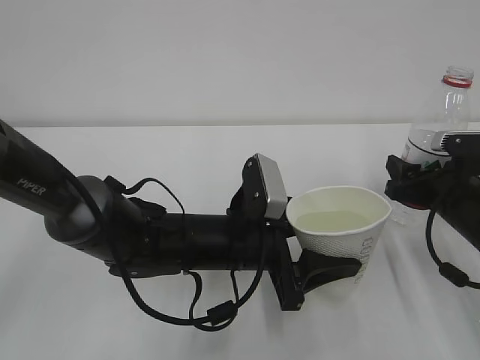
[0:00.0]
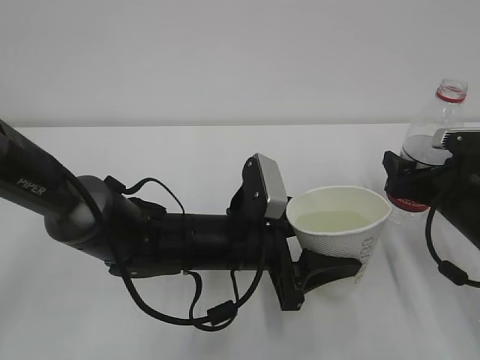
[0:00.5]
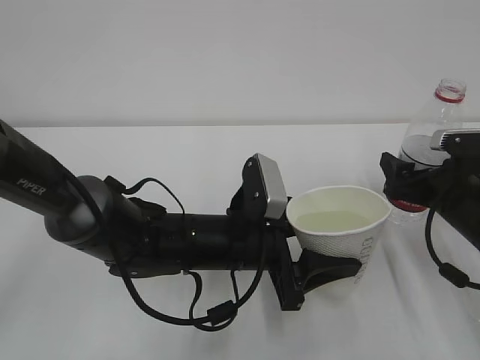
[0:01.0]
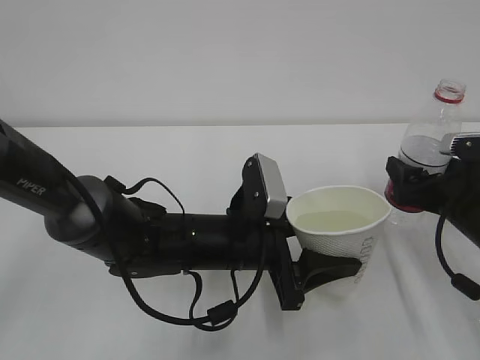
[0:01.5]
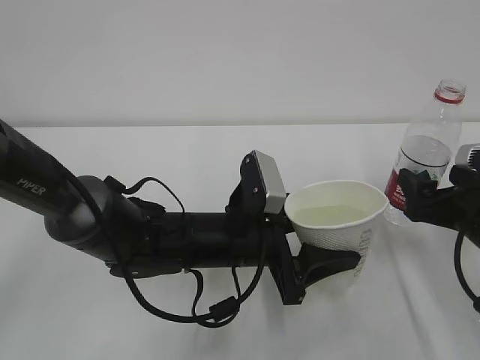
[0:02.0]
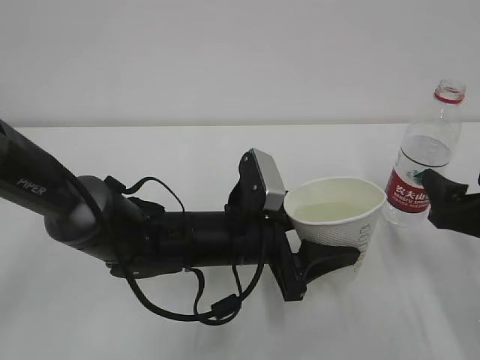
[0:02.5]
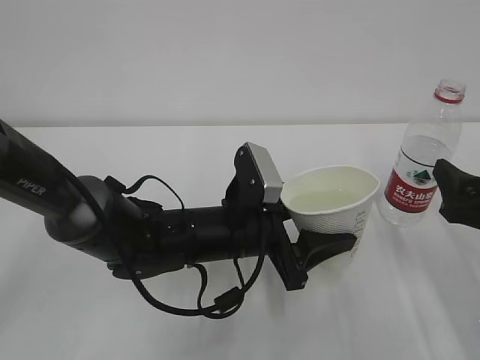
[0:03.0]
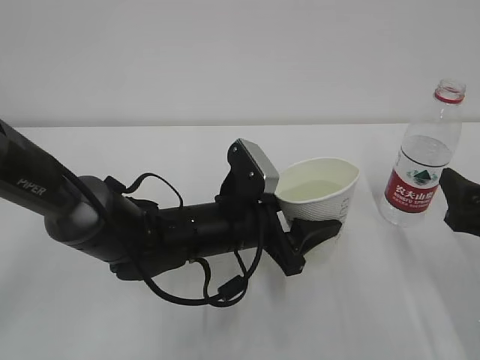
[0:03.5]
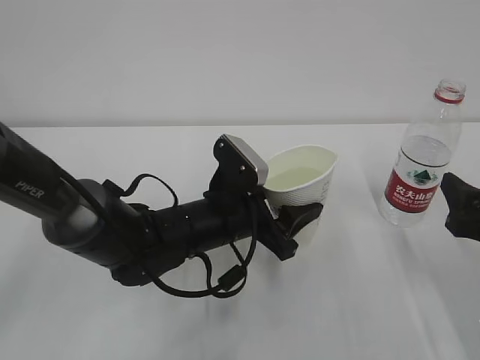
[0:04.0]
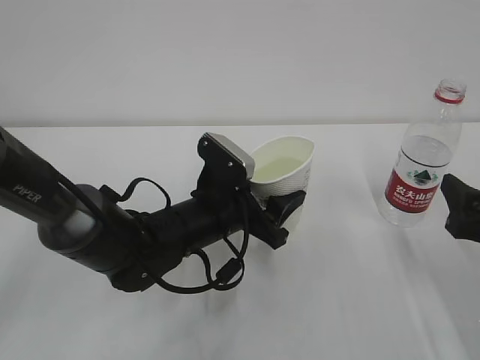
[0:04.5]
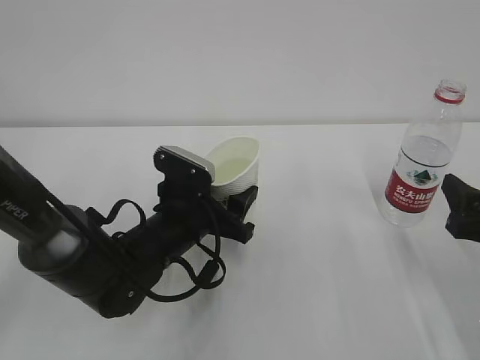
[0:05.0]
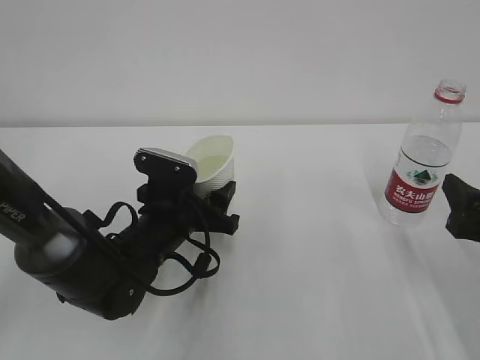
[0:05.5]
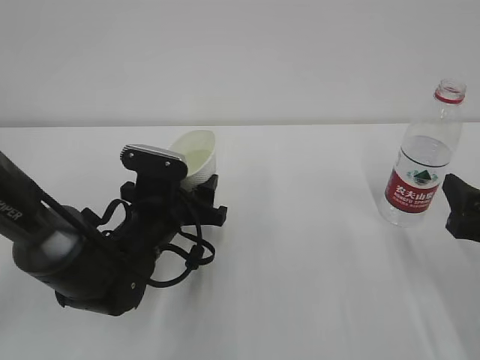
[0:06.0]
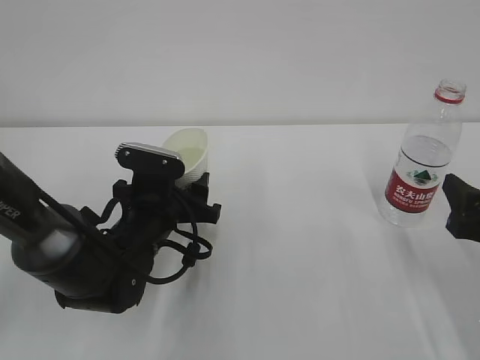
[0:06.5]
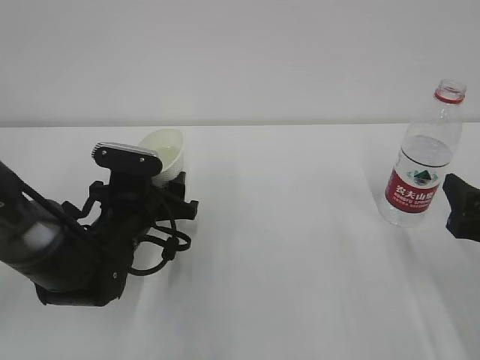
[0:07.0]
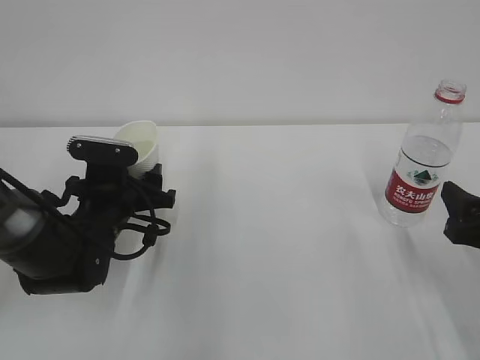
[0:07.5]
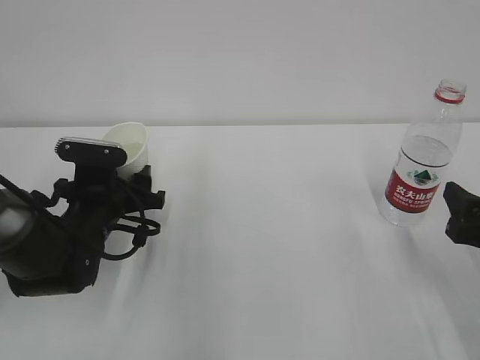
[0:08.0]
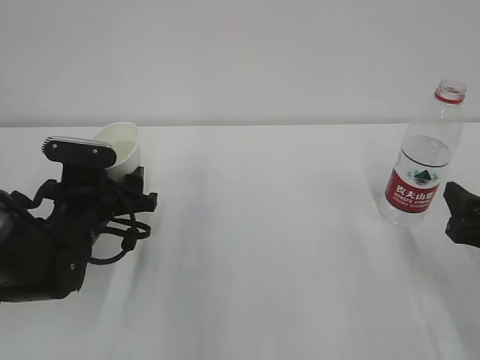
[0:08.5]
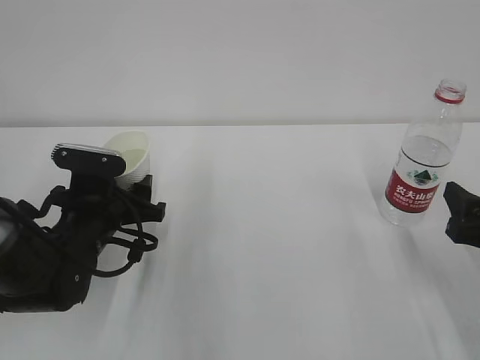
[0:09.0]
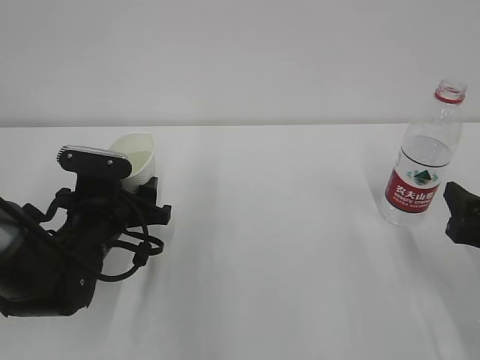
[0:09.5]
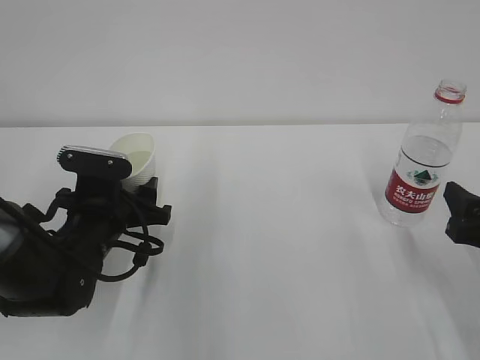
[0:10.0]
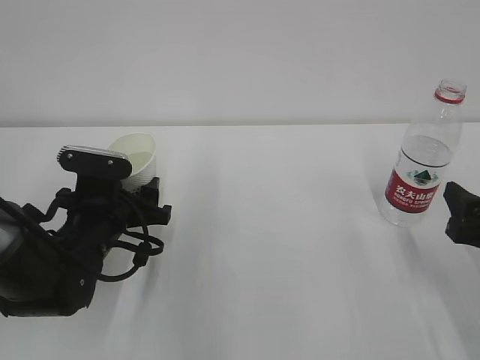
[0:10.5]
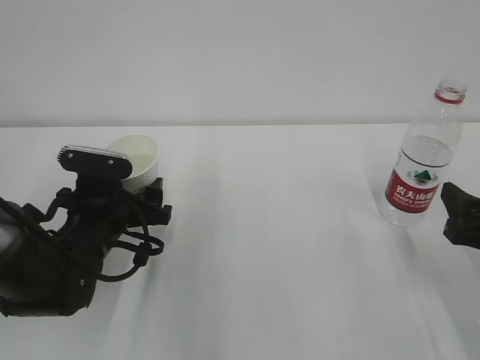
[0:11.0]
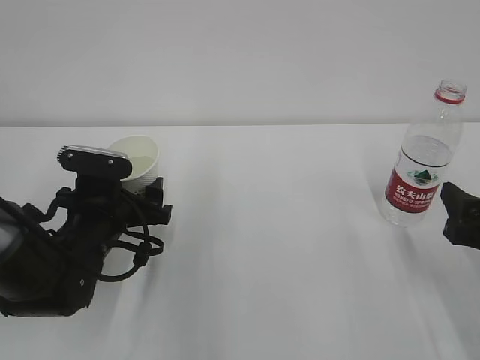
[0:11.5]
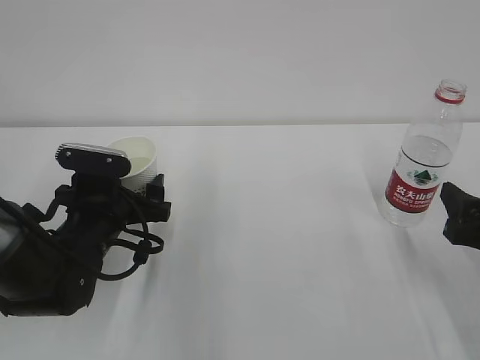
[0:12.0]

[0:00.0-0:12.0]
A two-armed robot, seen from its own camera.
0:00.0 to 0:02.0: The right gripper shifts by about 5 cm, and opens up.
0:02.0 to 0:04.0: The right gripper goes some 5 cm backward.
0:04.0 to 0:06.0: The left gripper is displaced to the left by some 10 cm.
0:06.0 to 0:08.0: The left gripper travels to the left by about 5 cm.
0:08.0 to 0:10.0: There are only small adjustments of the grippers.
0:10.0 to 0:12.0: The left gripper opens.

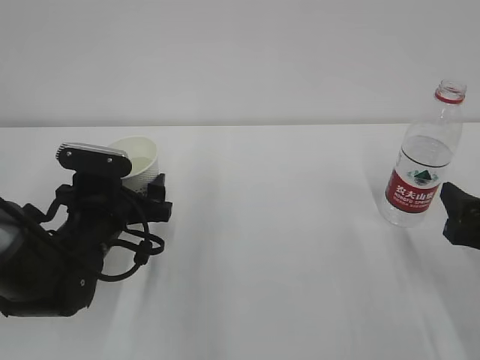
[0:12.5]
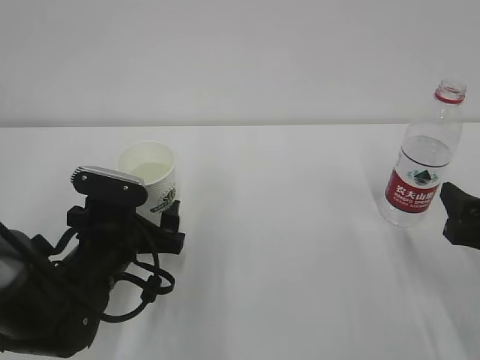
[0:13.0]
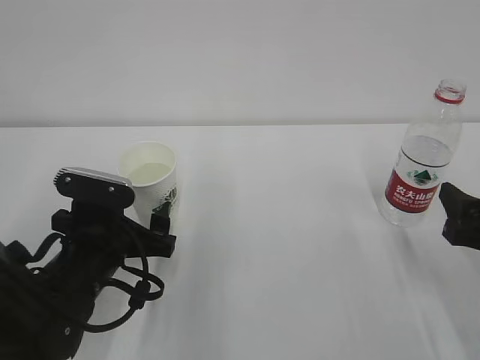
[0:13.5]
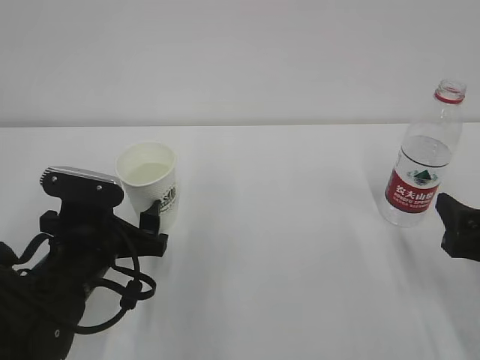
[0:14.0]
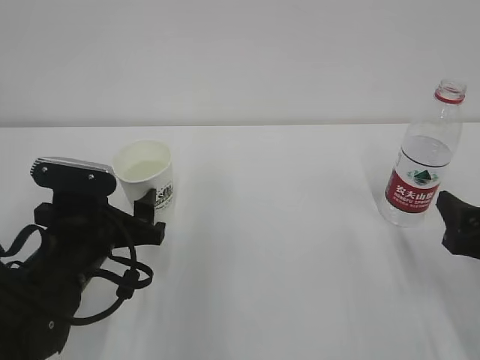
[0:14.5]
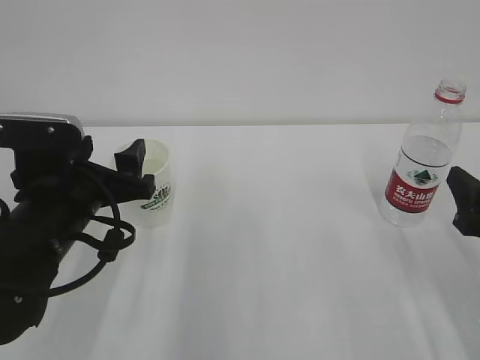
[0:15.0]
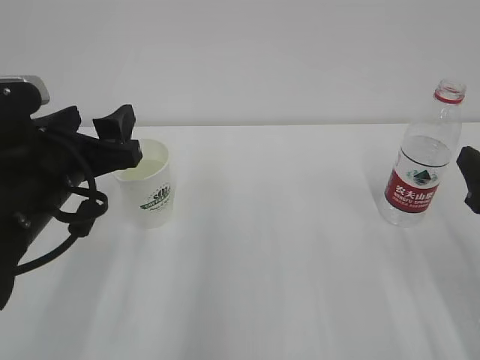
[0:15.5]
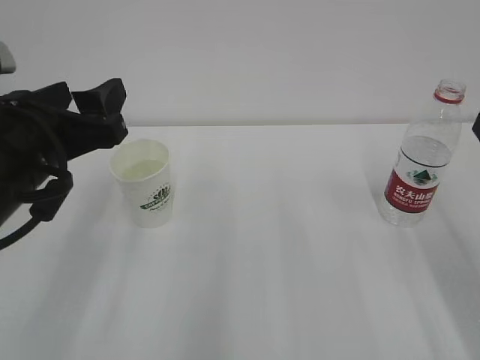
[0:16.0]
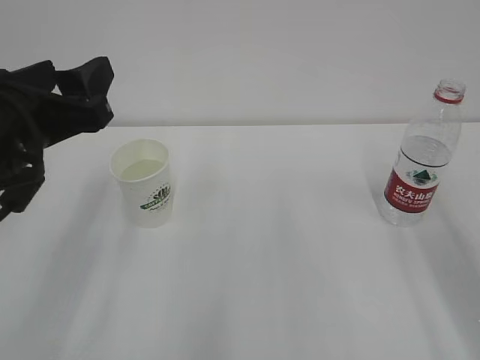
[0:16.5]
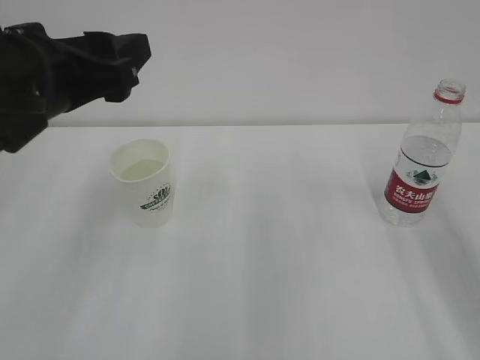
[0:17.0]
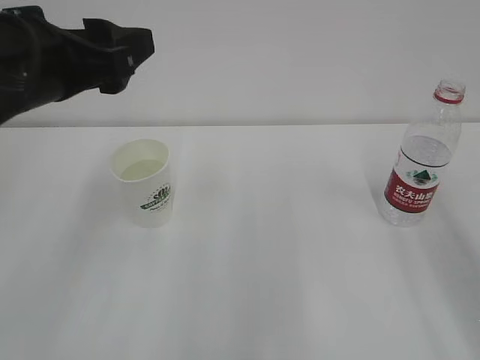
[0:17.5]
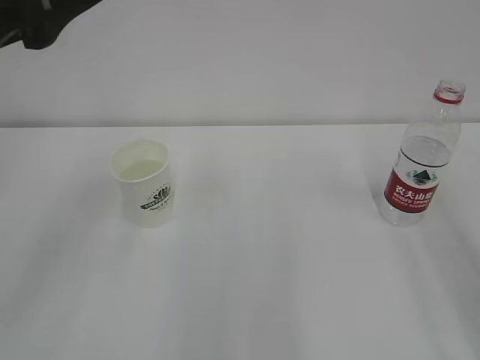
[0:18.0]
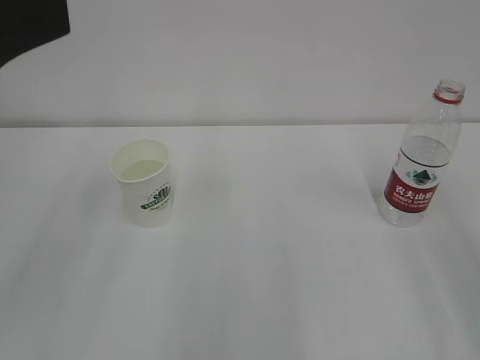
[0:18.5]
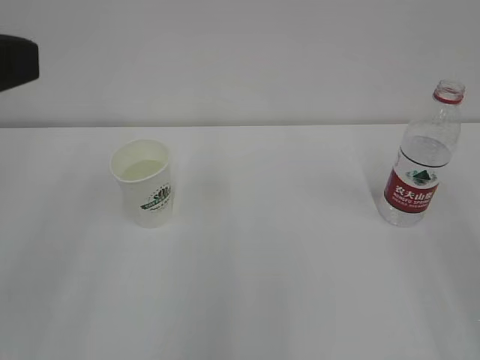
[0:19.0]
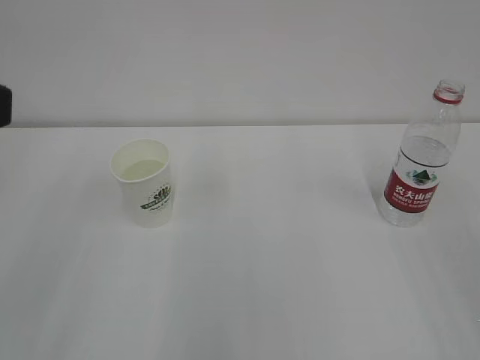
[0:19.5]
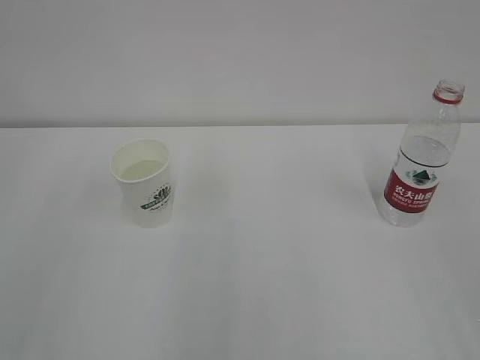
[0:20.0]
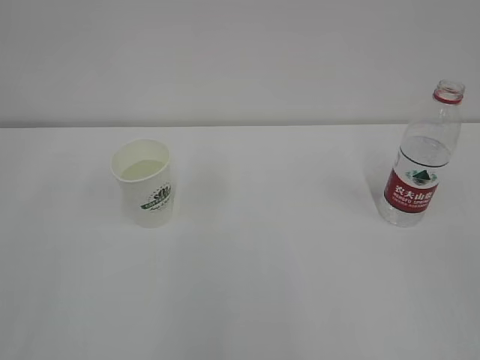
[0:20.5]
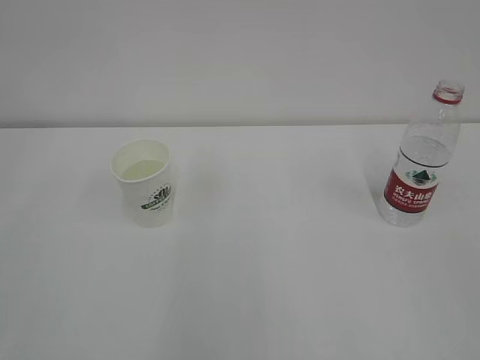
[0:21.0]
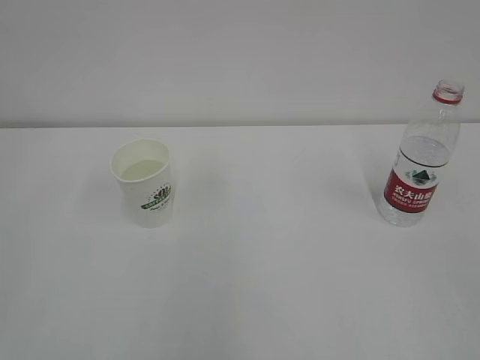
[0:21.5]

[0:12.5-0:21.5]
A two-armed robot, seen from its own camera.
0:12.5 to 0:14.5: The left gripper shifts roughly 5 cm backward.
0:14.5 to 0:17.0: The grippers both shift upward by roughly 20 cm.
0:17.0 to 0:19.5: The left gripper is displaced backward, upward and to the left by roughly 15 cm.

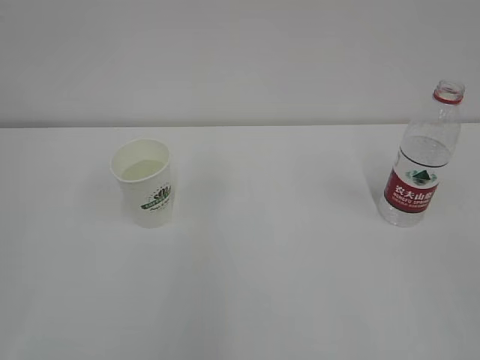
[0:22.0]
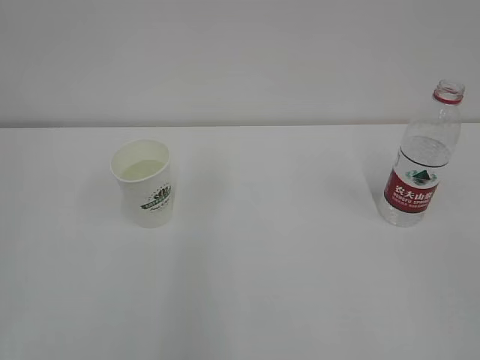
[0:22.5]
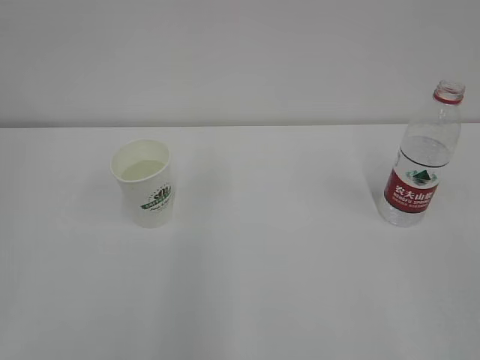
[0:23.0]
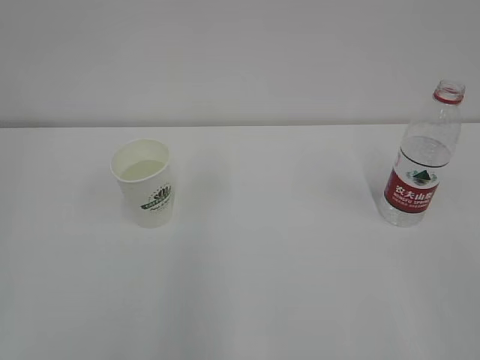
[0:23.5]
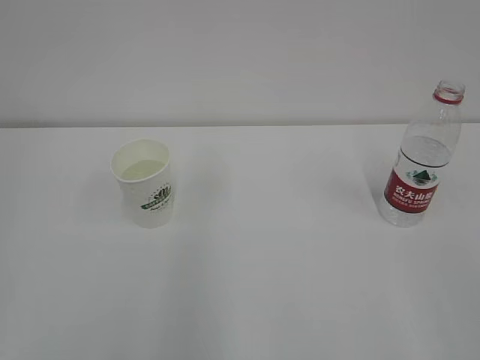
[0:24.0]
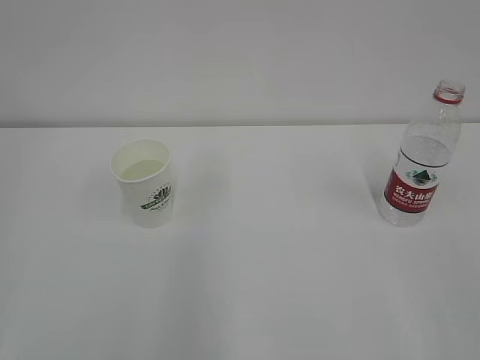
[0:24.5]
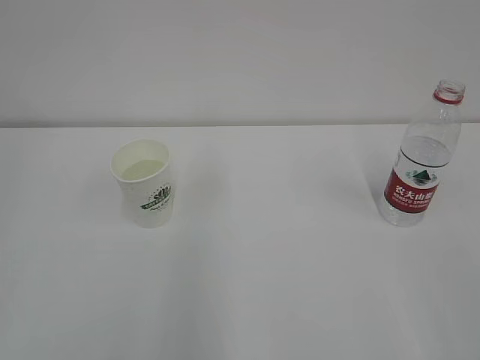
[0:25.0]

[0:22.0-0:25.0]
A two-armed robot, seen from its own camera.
0:23.5 to 0:25.0: Both grippers stay about where they are.

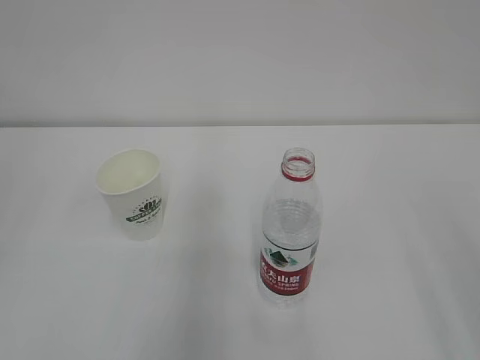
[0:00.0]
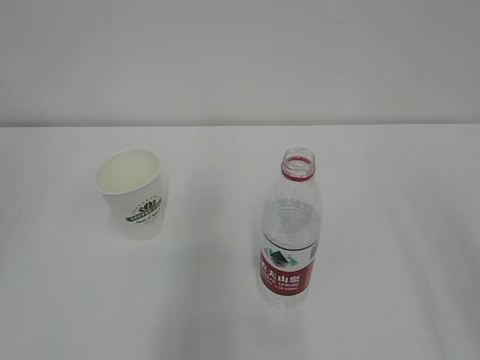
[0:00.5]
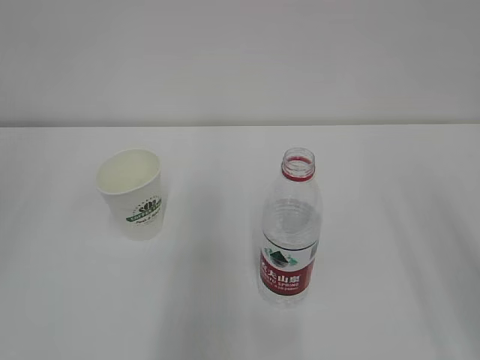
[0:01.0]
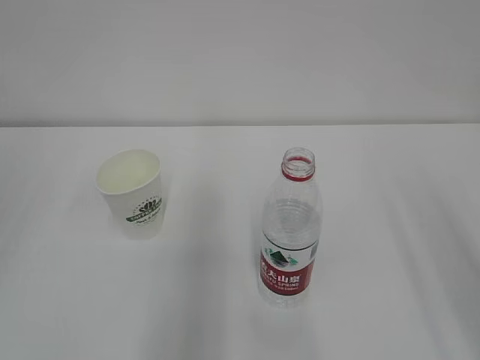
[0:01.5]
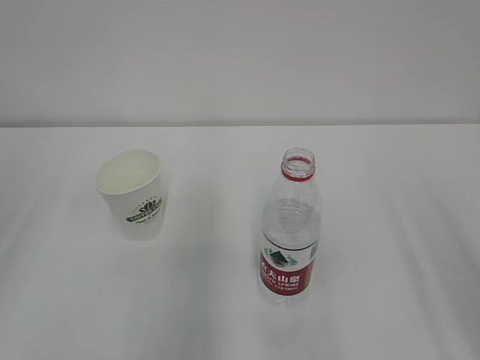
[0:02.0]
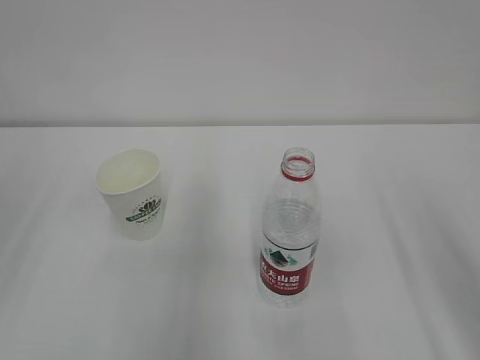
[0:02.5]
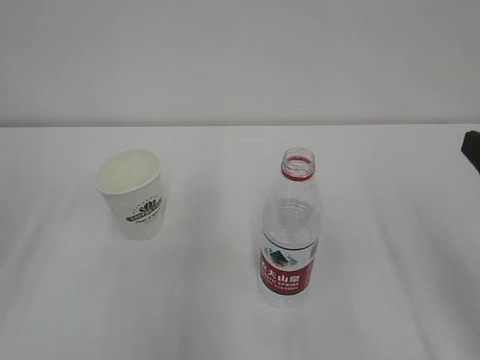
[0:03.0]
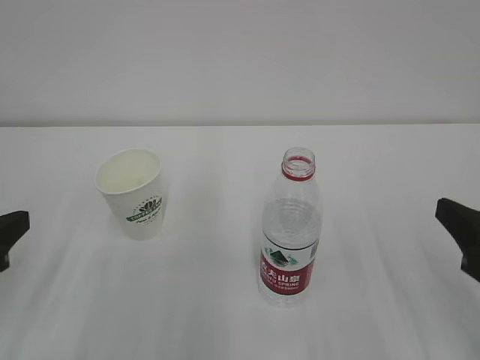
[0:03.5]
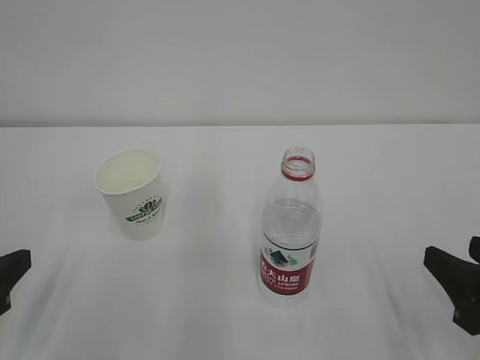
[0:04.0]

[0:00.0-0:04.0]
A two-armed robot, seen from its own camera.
0:02.0 to 0:04.0: Both grippers travel together downward, some 15 cm.
